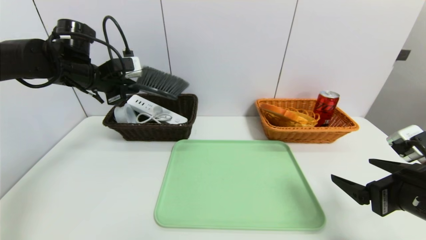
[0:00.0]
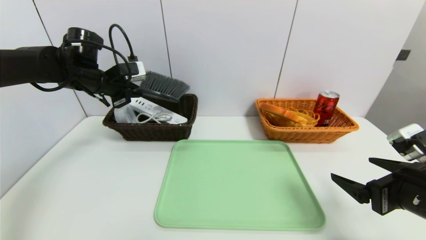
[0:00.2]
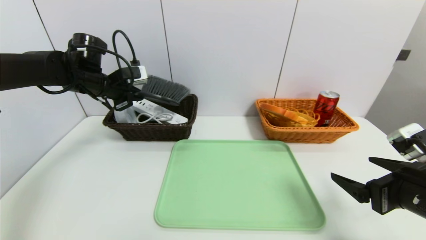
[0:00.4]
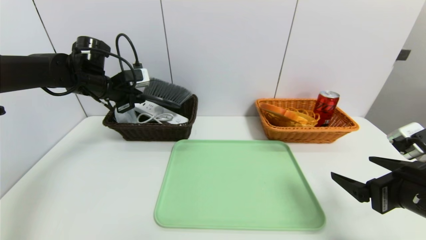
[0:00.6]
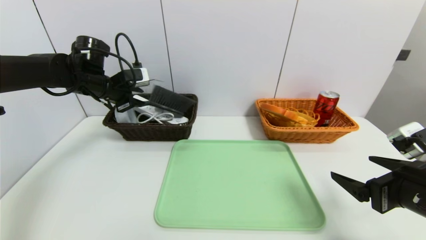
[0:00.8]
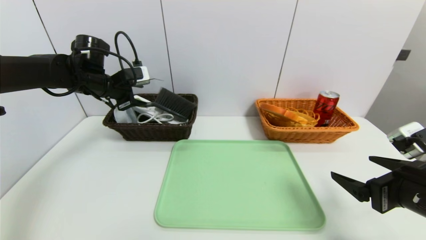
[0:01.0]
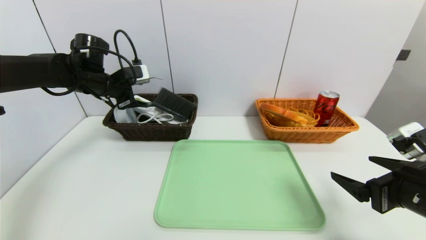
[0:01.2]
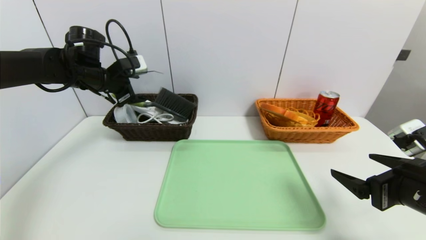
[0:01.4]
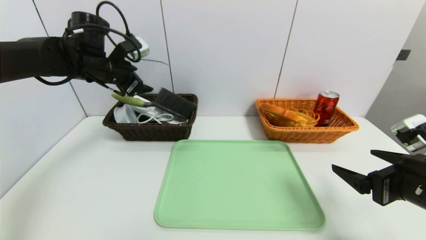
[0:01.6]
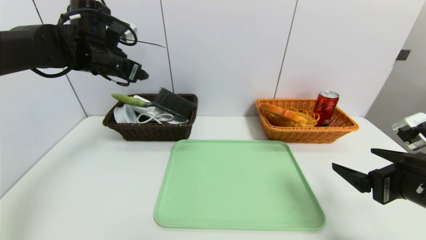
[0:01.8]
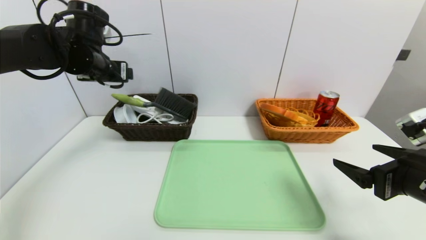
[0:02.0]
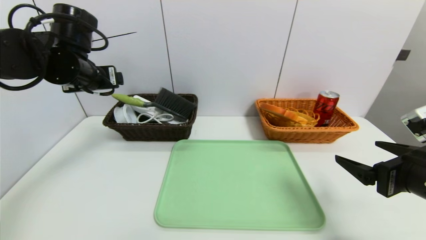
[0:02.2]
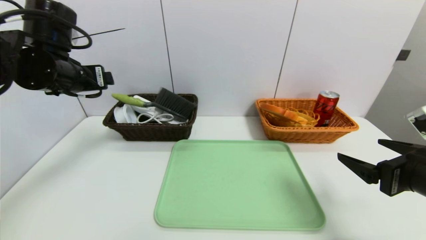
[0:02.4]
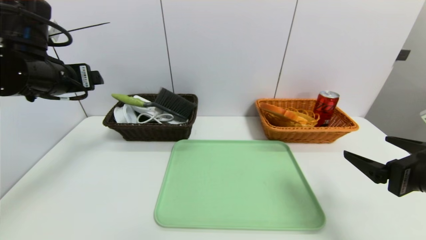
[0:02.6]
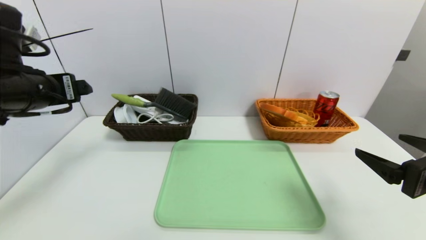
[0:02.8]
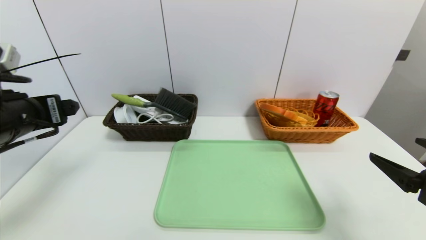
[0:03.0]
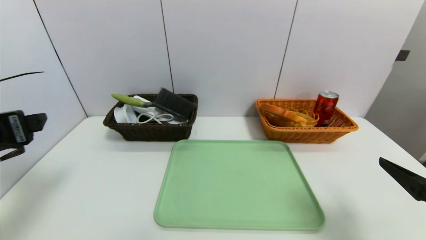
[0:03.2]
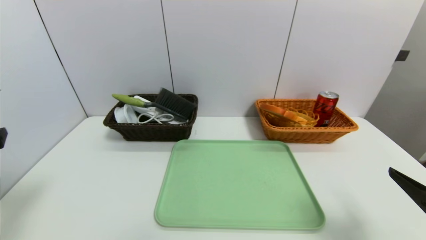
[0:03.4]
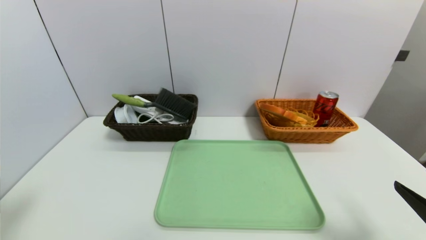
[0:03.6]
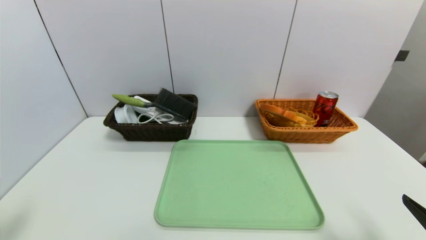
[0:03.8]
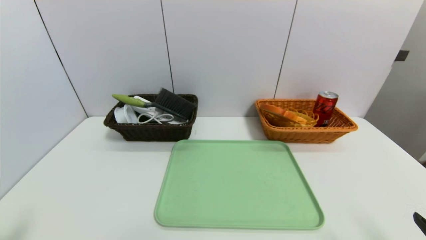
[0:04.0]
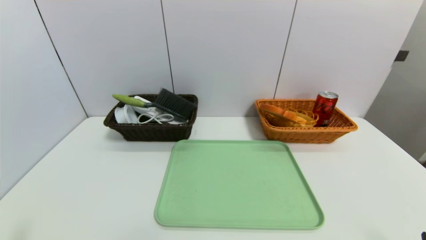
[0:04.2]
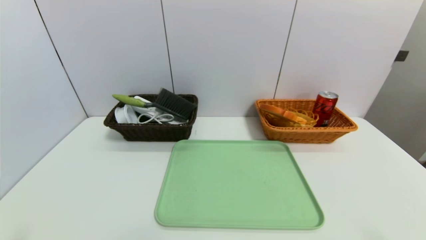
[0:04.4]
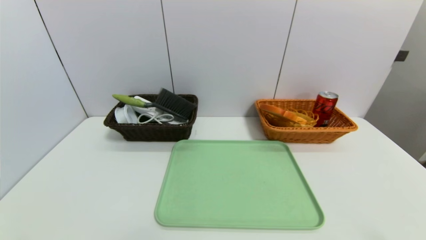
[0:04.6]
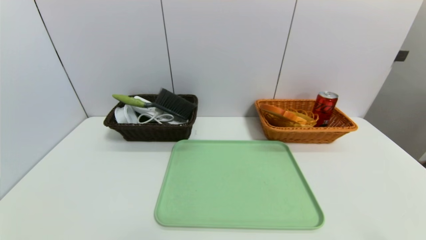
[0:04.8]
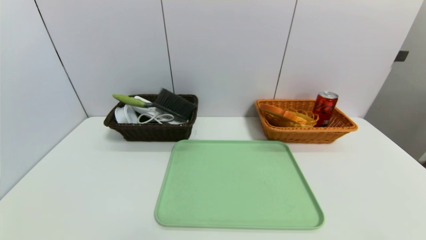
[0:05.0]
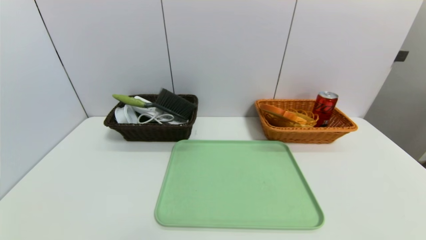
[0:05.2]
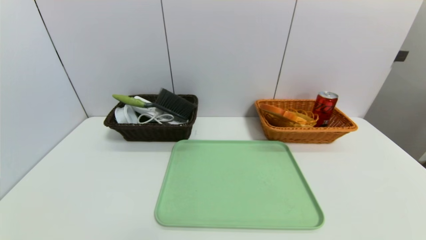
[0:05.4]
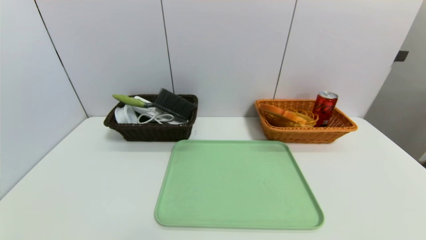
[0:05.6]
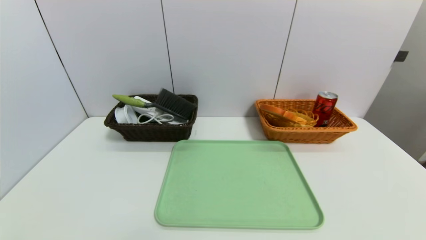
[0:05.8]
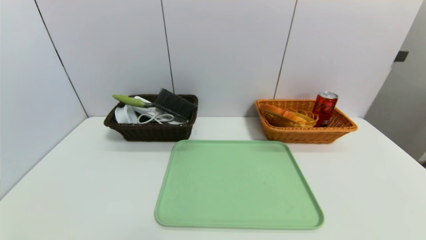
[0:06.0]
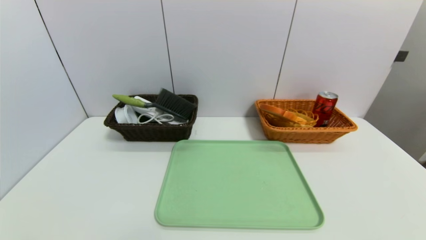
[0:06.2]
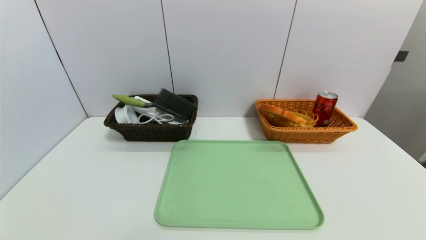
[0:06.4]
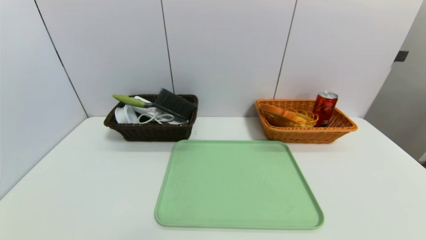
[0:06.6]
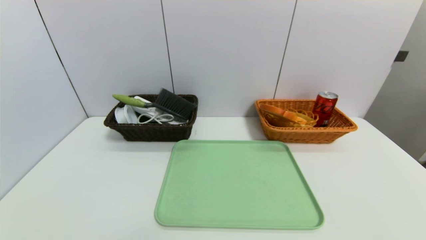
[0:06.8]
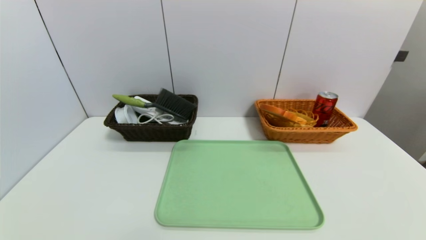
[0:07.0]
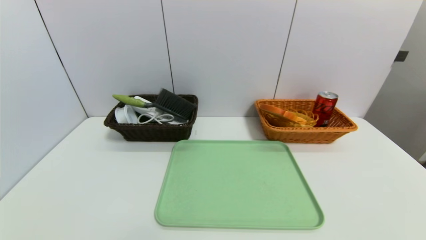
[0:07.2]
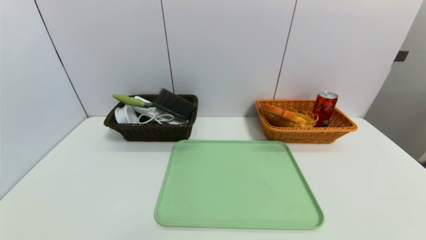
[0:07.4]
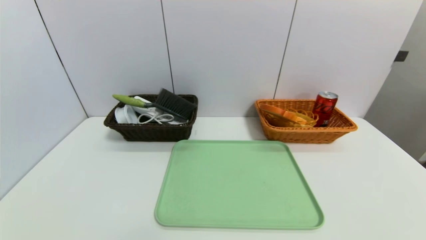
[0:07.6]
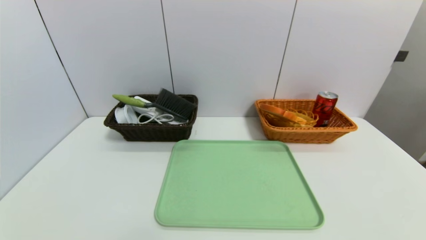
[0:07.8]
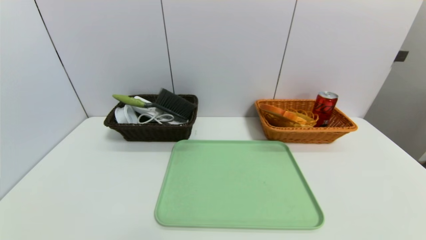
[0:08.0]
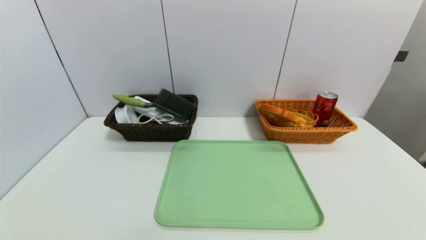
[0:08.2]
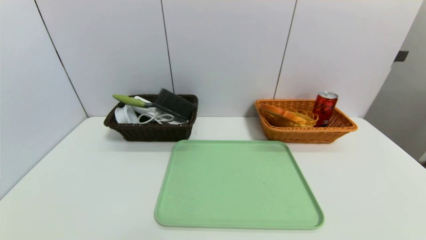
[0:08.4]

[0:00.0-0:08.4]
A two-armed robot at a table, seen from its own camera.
Task of the whole recording: place the food in the right basket with the right gripper, and place the non food items in the left basket with the left gripper.
0:00.0 to 0:01.4: The left gripper opens.
0:01.4 to 0:02.8: The left gripper moves backward, about 20 cm.
0:02.8 to 0:04.2: The right gripper is displaced backward and downward by approximately 15 cm, while the left gripper goes roughly 25 cm backward and downward.
0:07.0 to 0:08.4: The two grippers keep their place.
